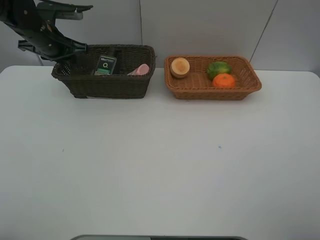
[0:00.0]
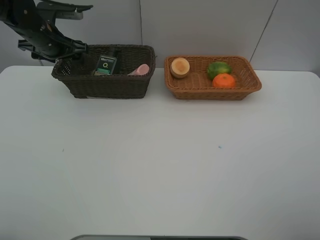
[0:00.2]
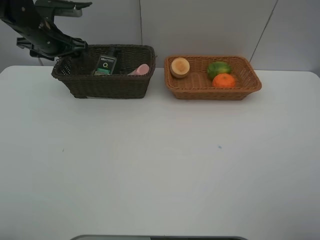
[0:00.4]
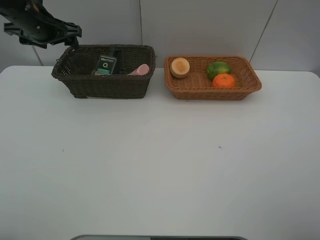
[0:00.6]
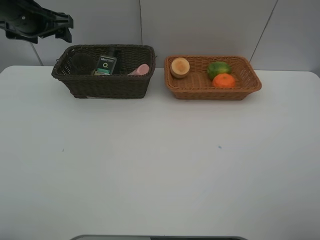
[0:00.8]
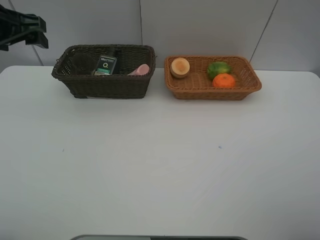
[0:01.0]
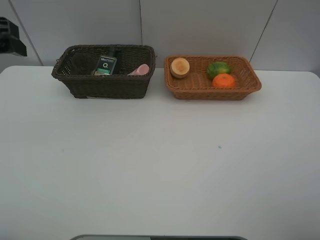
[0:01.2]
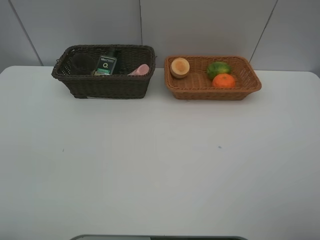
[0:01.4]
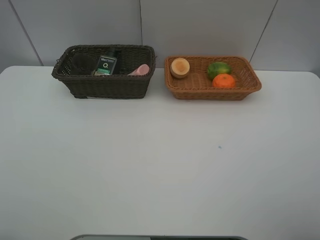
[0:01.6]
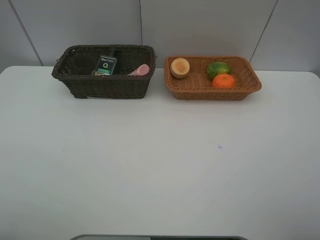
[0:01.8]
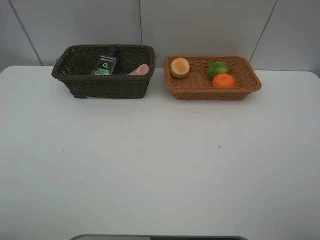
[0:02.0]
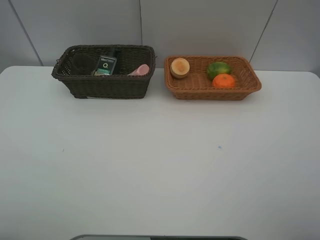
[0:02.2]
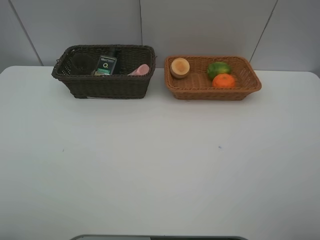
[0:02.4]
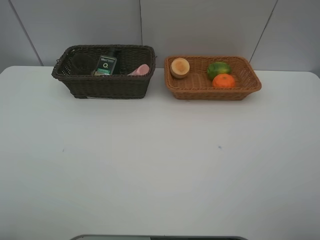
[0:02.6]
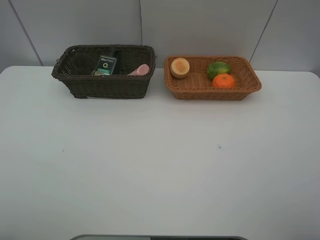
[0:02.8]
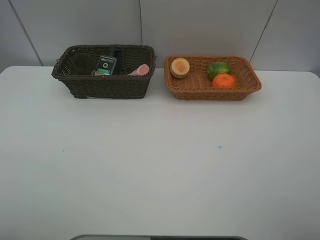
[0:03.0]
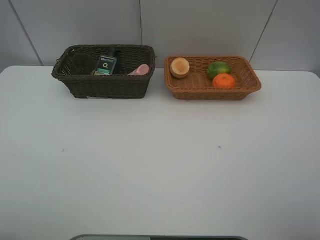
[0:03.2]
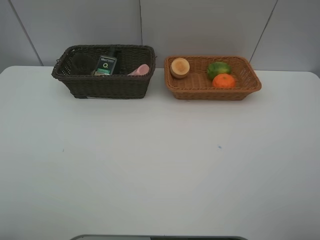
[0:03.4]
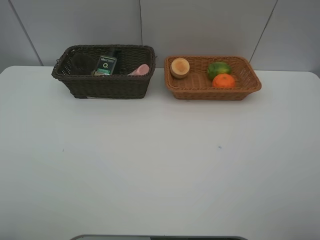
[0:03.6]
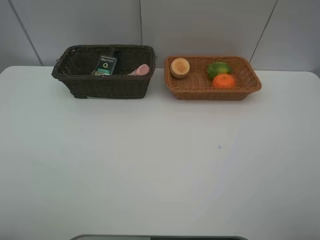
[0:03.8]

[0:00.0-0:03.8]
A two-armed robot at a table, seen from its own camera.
Task of the whole recording: place multiple objects separately in different baskets.
0:00.0 to 0:01.2: The left gripper moves backward and upward, about 20 cm, and opens.
0:01.2 to 0:02.6: The left gripper shifts about 25 cm backward.
0:02.6 to 0:03.8: Both grippers stay about where they are.

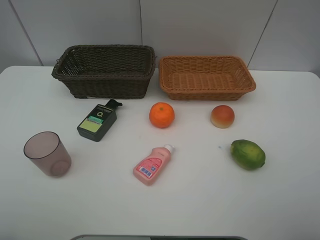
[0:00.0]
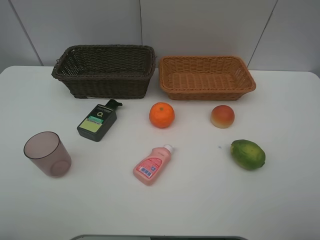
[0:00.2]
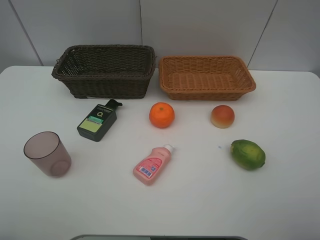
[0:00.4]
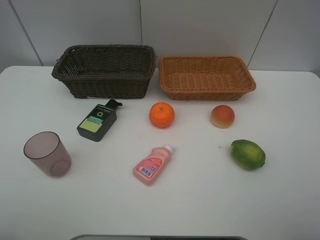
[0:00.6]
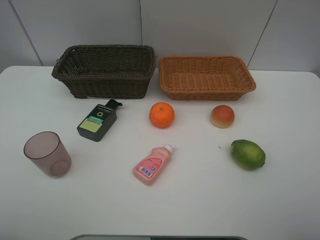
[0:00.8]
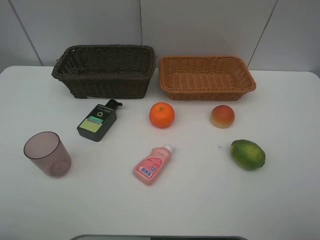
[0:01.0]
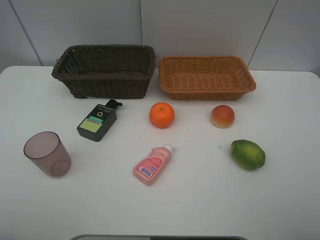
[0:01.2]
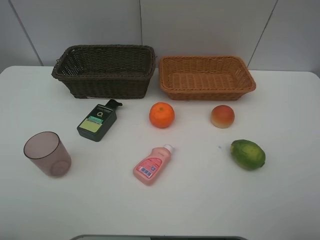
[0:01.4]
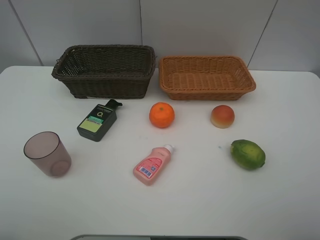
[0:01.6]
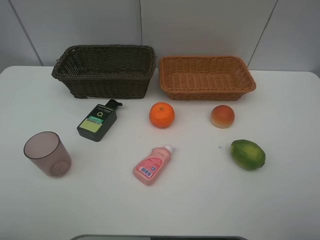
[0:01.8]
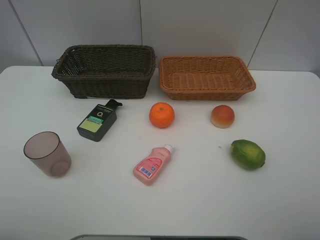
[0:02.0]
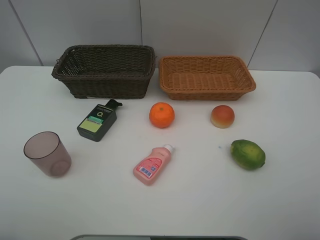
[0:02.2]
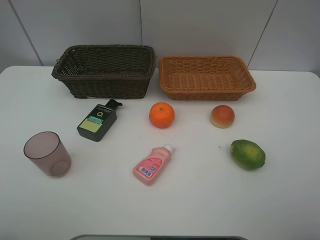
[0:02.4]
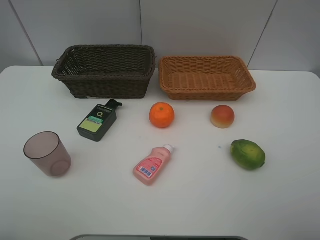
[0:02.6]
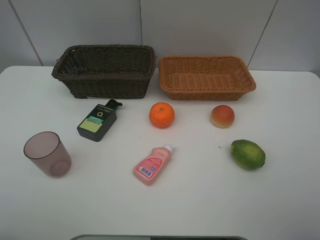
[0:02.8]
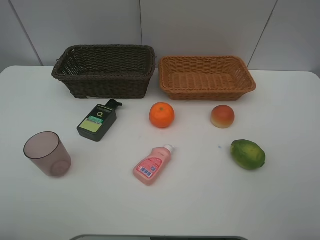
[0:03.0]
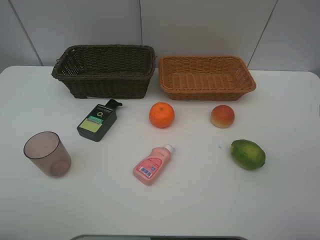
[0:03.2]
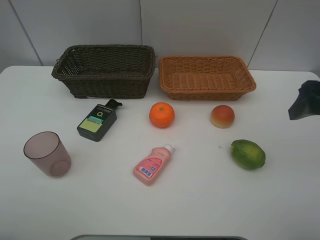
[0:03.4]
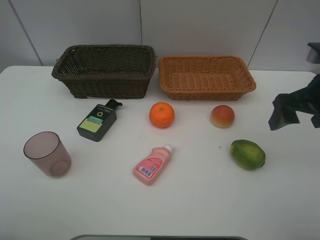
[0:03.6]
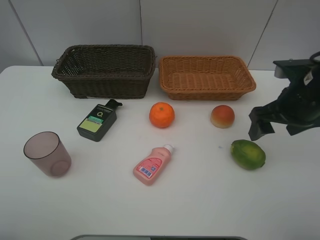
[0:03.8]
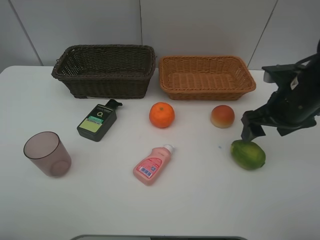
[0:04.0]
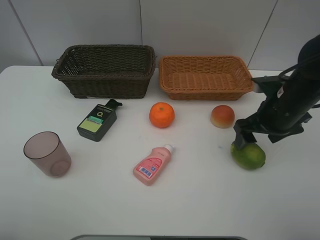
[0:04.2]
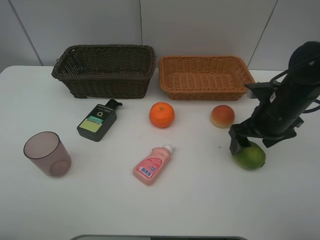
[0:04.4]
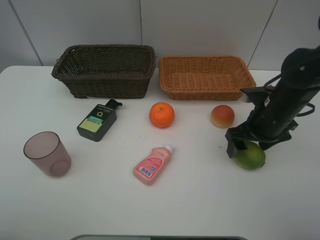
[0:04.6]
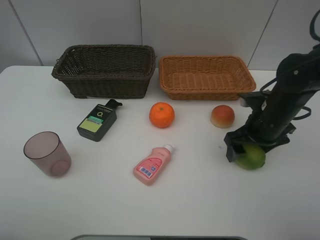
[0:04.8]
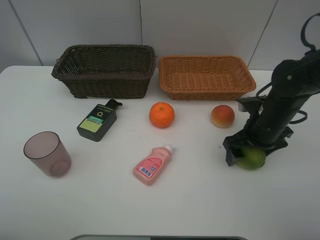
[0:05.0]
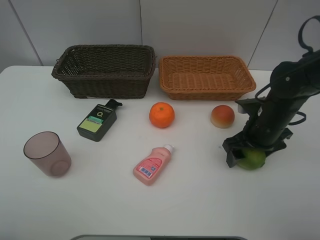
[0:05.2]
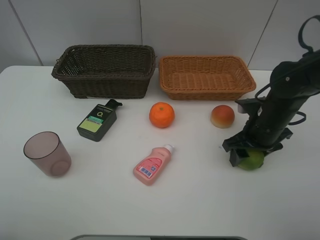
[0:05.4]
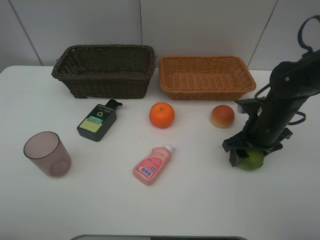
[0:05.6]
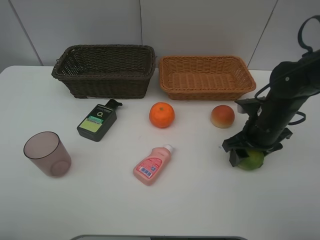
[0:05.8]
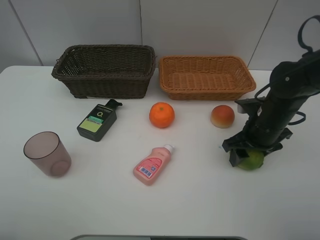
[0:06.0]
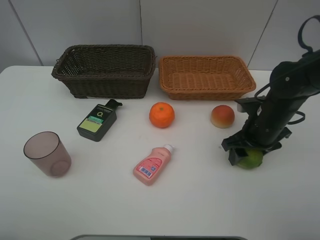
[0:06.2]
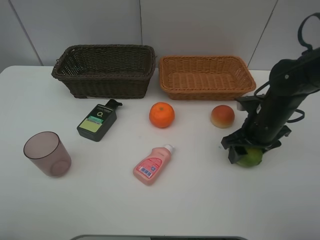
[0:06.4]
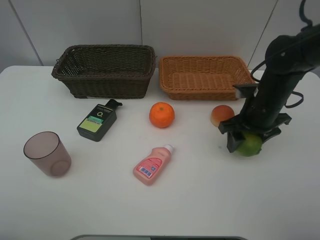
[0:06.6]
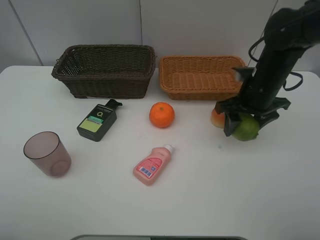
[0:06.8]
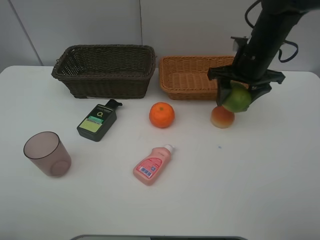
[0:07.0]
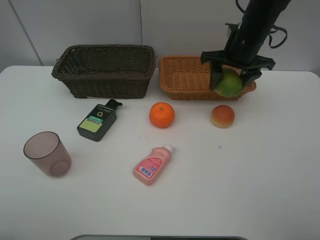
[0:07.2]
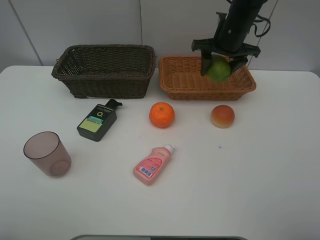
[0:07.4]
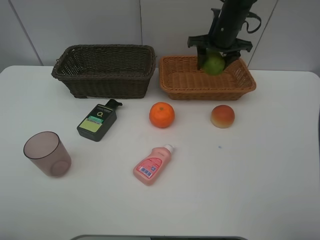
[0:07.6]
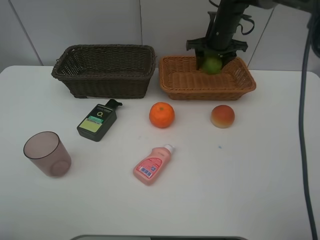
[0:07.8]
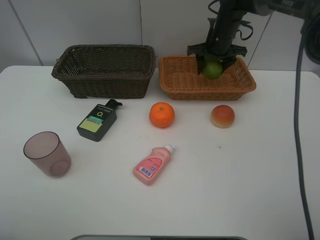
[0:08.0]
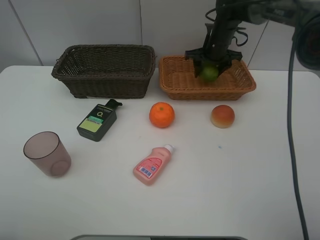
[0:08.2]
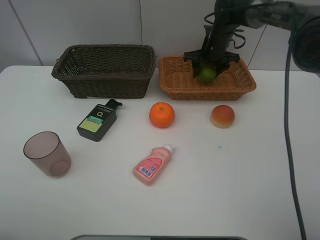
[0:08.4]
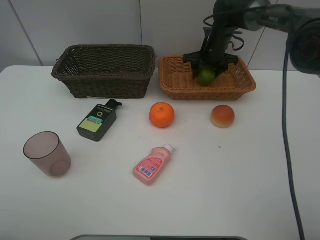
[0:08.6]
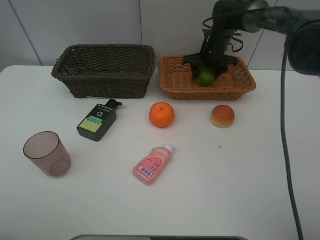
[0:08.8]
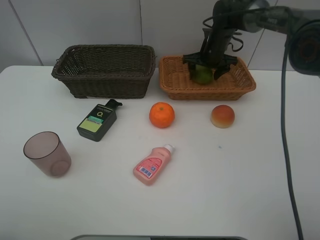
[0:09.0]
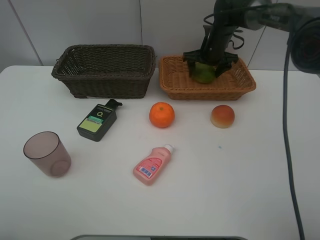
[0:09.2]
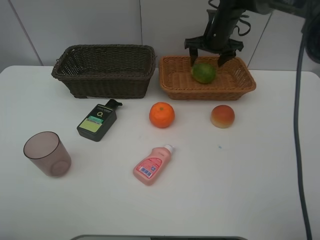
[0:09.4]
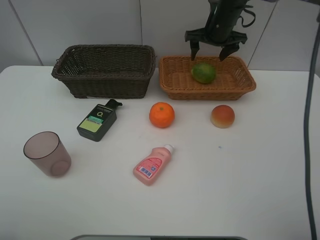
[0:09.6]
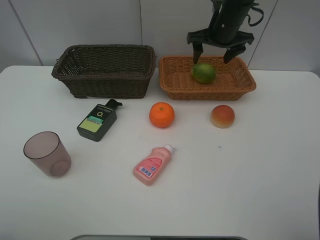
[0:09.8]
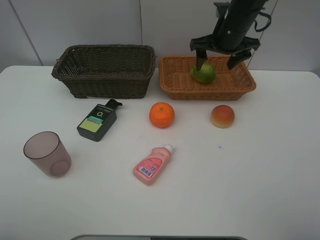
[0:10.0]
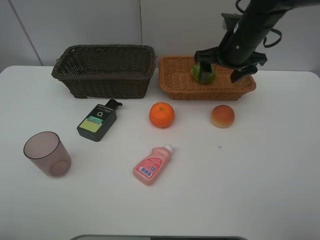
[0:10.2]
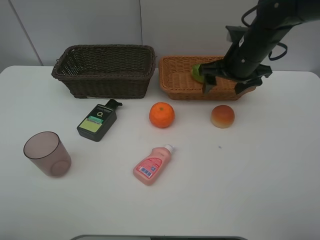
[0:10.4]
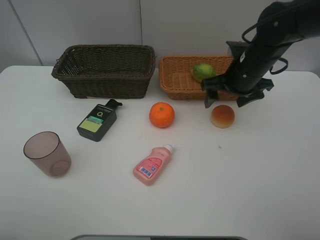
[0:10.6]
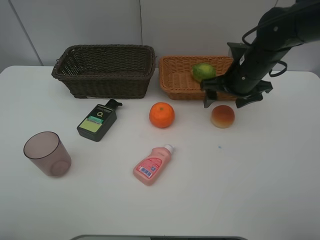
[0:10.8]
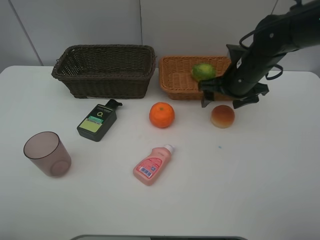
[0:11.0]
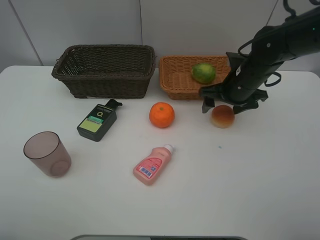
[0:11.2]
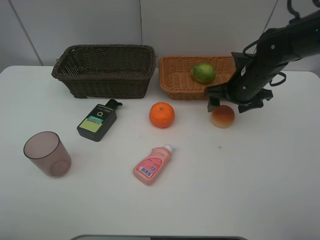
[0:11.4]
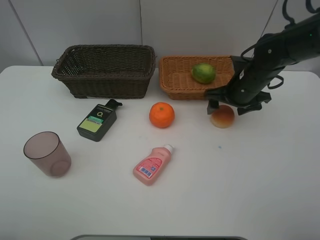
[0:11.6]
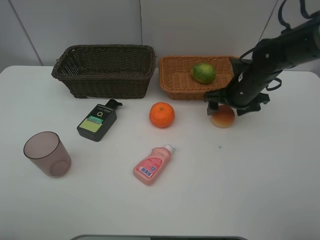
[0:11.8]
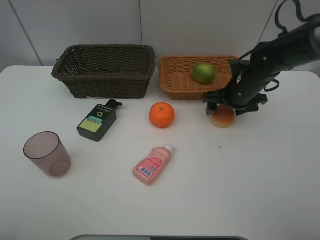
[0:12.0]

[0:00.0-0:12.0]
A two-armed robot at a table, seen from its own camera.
Task of the whole recording: place multiple objects separately in different baskets.
0:00.0 to 0:01.6: The two grippers keep their place.
0:03.0 to 0:04.4: The right gripper shifts roughly 25 cm forward, downward and to the left.
0:04.4 to 0:06.0: The right gripper closes up.
0:06.0 to 0:07.6: The right gripper travels forward and upward by about 25 cm.
0:07.6 to 0:09.0: The right gripper heads downward, covering approximately 5 cm, and opens.
0:09.0 to 0:10.4: The right gripper travels backward by approximately 15 cm.
0:10.4 to 0:12.0: The right gripper shifts roughly 10 cm downward.

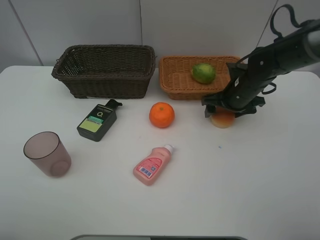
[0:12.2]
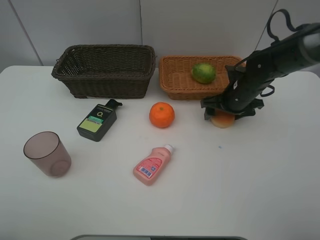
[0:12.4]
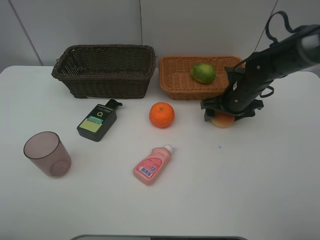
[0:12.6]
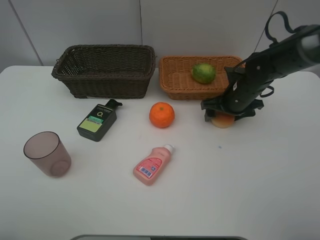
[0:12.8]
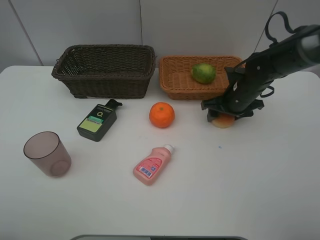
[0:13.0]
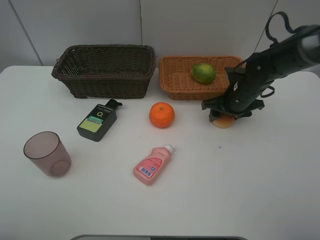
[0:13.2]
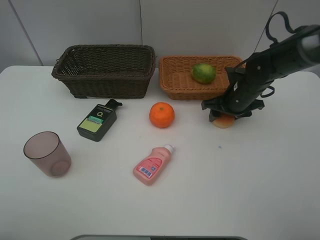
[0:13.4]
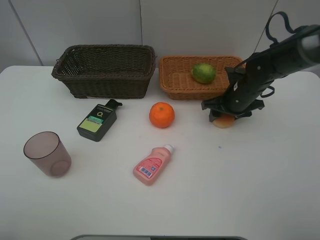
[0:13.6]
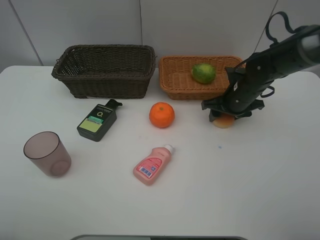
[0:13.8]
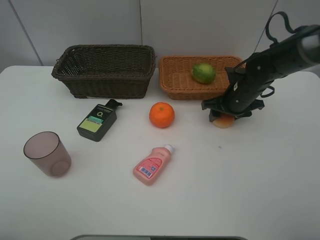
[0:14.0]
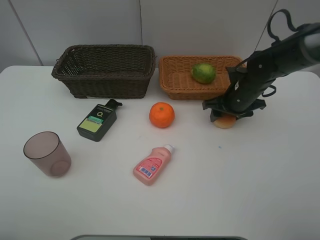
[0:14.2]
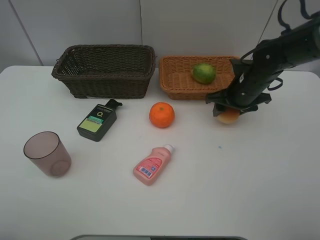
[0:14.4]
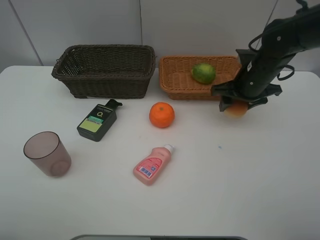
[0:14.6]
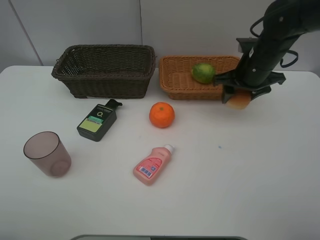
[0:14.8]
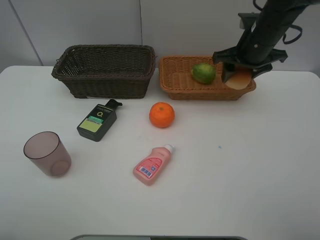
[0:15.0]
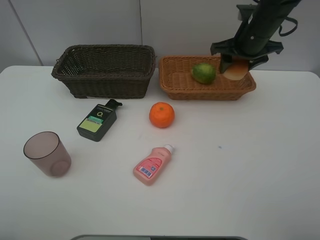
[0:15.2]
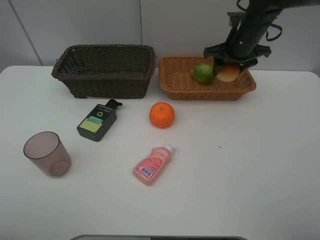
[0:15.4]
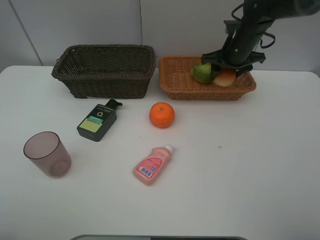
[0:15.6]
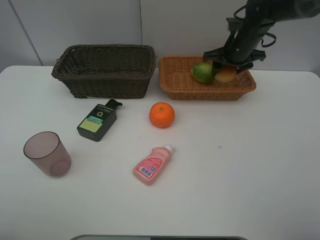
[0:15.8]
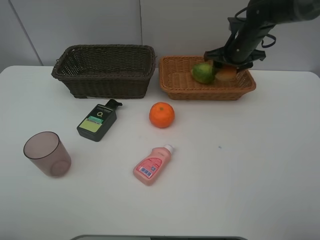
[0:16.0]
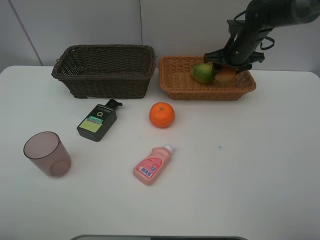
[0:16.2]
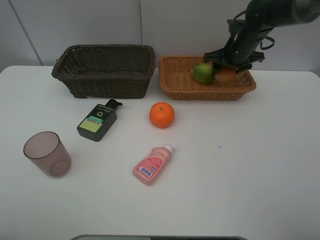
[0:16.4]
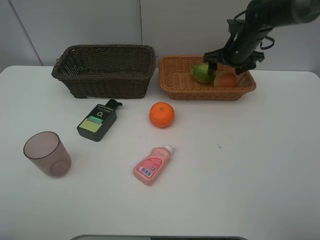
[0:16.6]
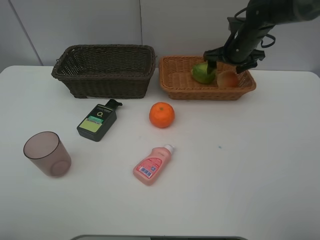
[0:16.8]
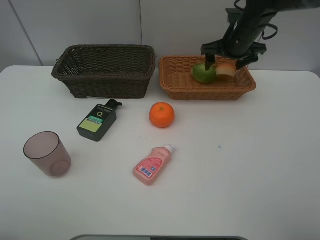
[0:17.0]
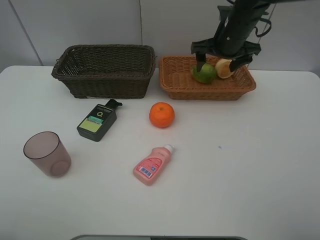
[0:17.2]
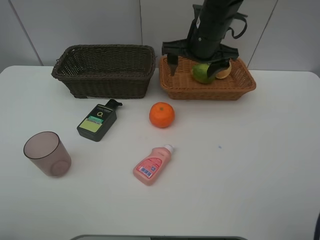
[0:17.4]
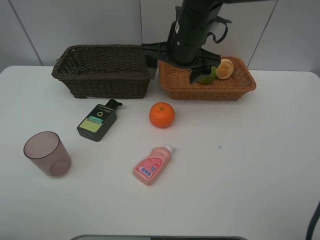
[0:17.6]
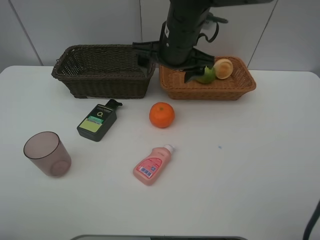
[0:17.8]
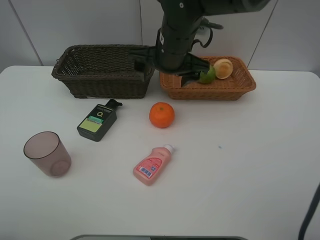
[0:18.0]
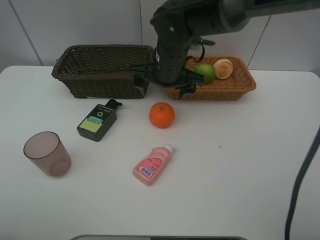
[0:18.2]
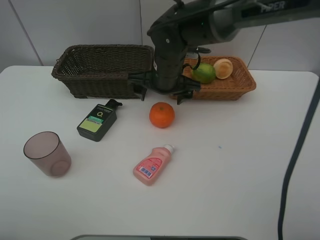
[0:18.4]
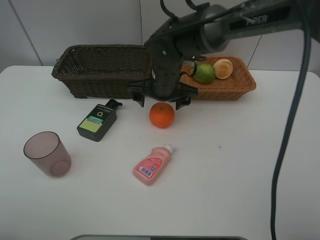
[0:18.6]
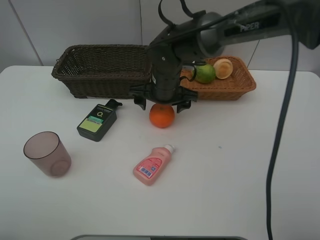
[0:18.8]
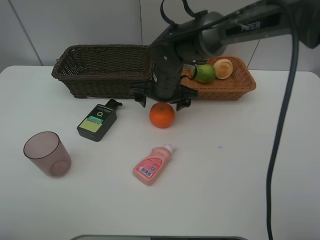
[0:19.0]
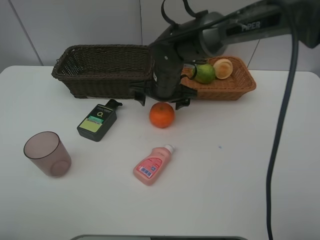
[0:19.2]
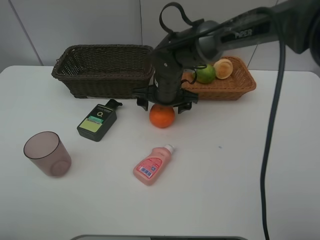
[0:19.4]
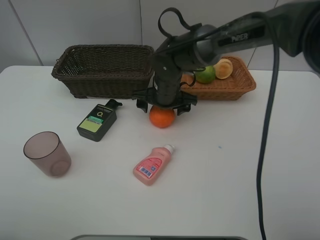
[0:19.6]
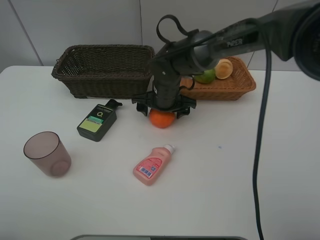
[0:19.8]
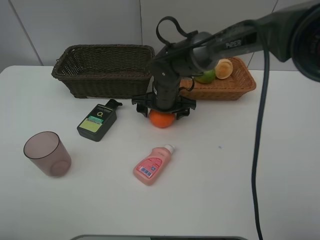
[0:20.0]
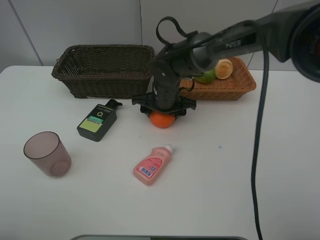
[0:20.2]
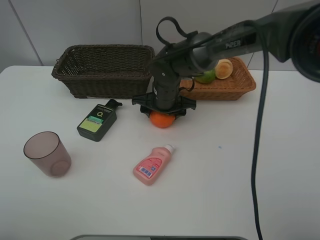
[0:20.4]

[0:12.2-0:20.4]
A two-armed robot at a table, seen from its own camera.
Task of the whole recording: place multiple objects separately in different baskets.
0:12.2 to 0:13.8: The right gripper closes.
0:13.8 to 0:15.4: The right gripper is displaced upward and forward by roughly 15 cm.
0:15.4 to 0:17.2: The right gripper changes place by roughly 5 cm, and opens its fingers.
0:17.2 to 0:18.8: The right gripper heads to the left, downward and backward, covering approximately 15 cm.
0:18.8 to 0:20.4: The right gripper closes its fingers.
